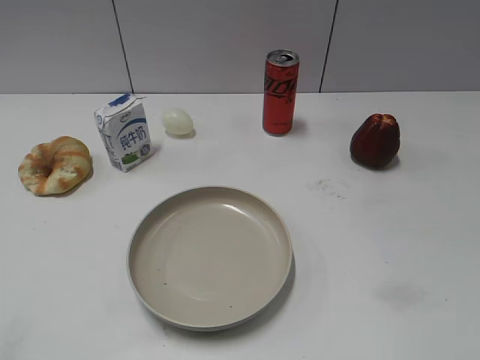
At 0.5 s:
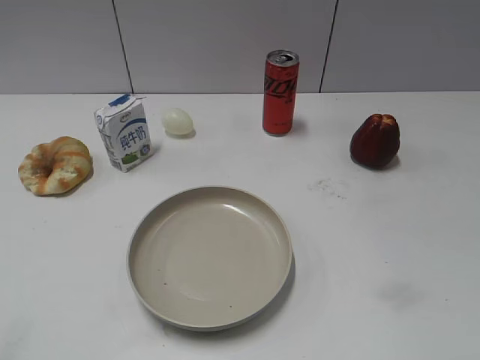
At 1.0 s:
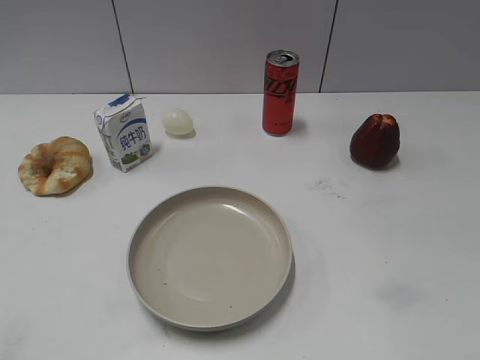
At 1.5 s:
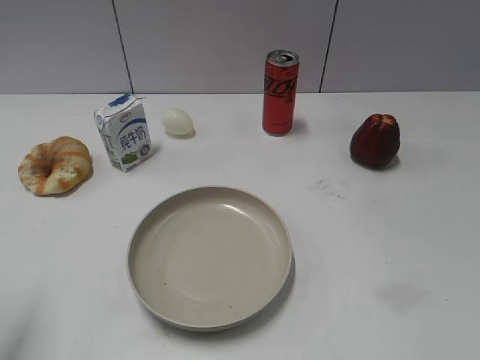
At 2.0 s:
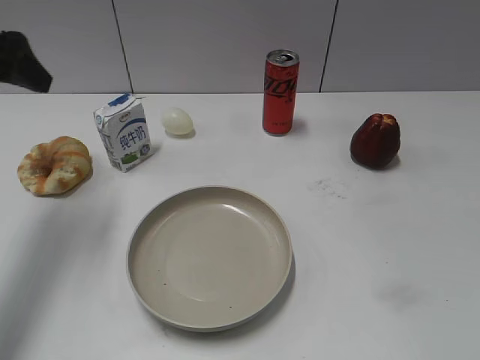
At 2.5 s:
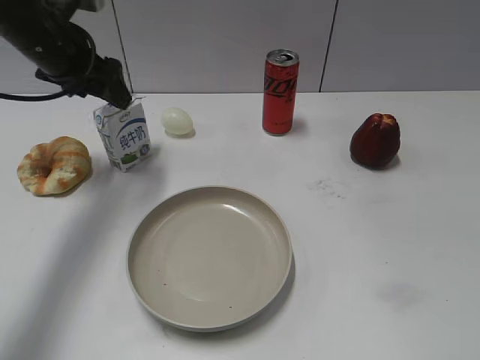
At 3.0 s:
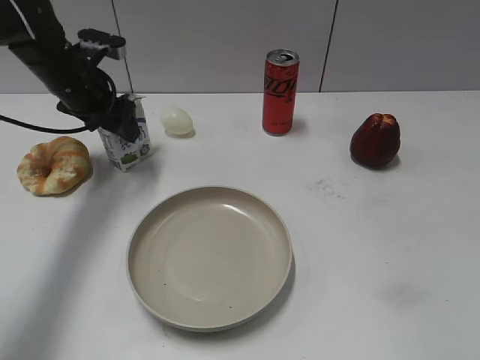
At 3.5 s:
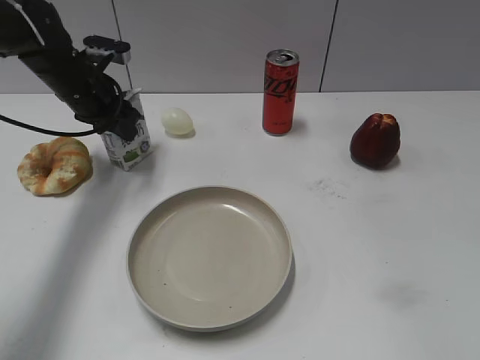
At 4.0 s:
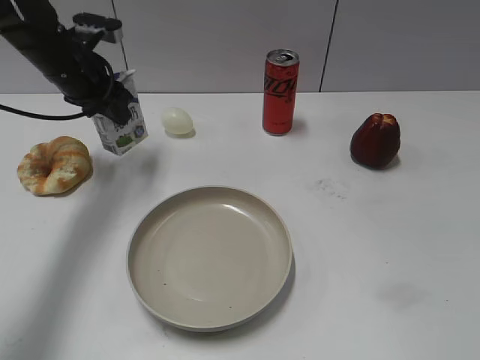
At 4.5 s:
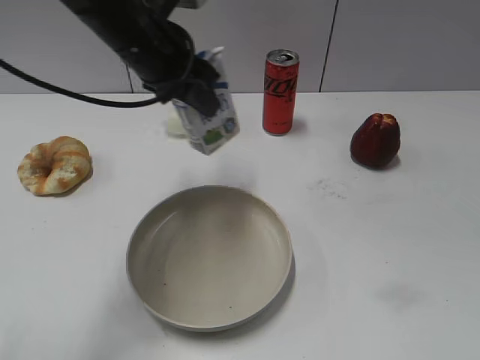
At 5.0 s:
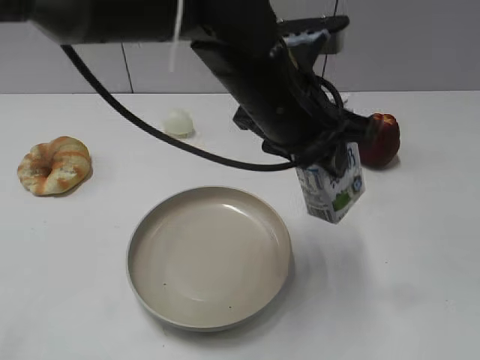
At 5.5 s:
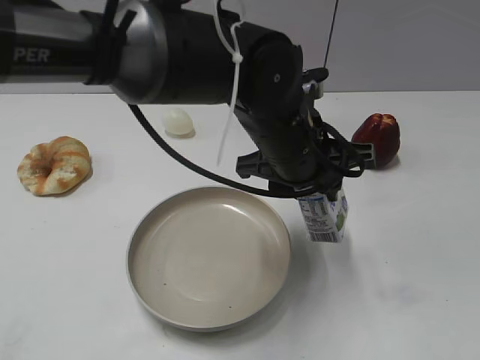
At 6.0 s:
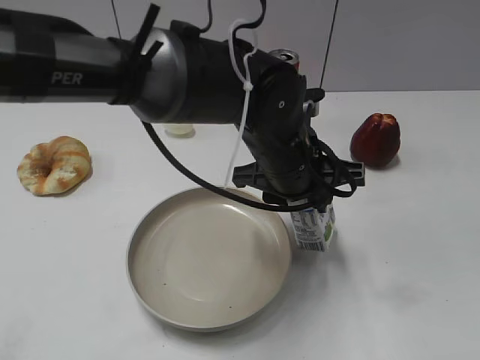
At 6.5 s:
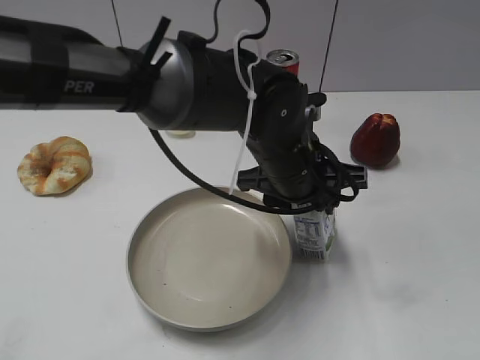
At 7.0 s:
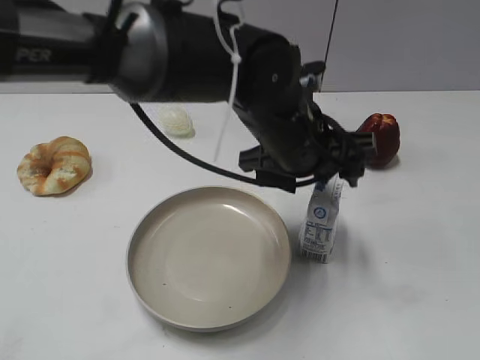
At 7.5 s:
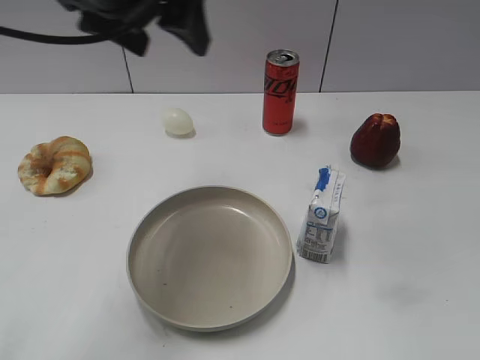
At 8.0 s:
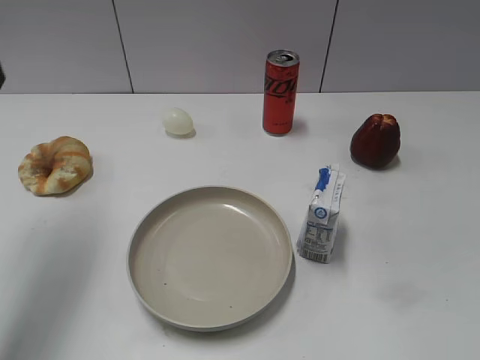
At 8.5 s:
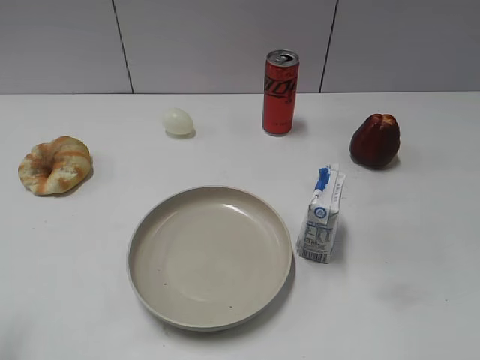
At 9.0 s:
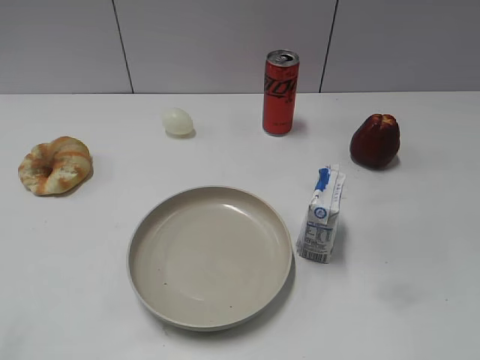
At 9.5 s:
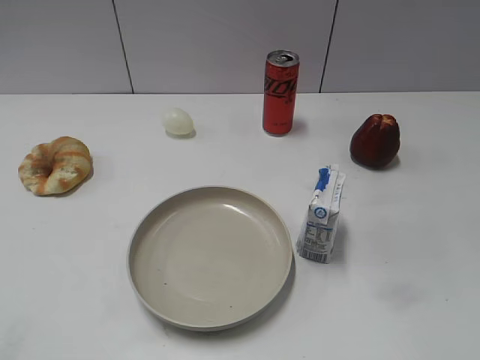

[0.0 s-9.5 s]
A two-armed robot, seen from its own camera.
Step, 1.0 to 3.5 s: Grasp the milk with left gripper.
Step, 4.0 to 7.0 s: Place the milk on the table with left gripper.
2.0 to 4.0 s: The left gripper is displaced forward, downward and to the right by some 15 cm, and closes up.
4.0 to 5.5 s: The left gripper travels to the right and backward by approximately 30 cm.
5.5 to 7.5 s: The left gripper goes some 25 cm to the left and upward, and opens its fingers.
7.5 to 9.5 s: The left gripper moves backward and to the left, about 35 cm, and closes its fingers.
